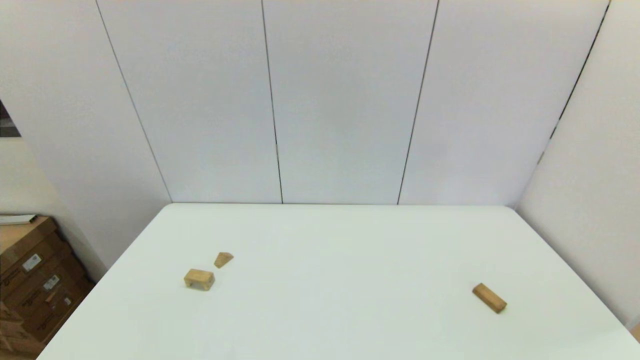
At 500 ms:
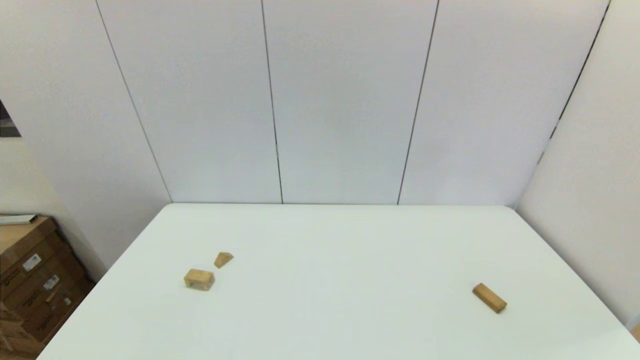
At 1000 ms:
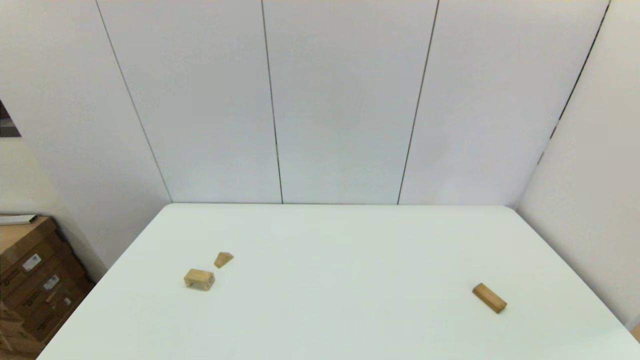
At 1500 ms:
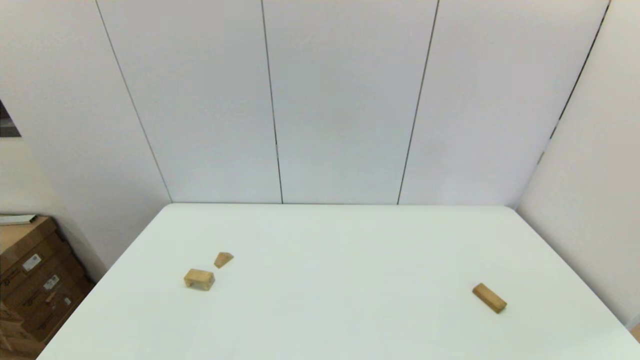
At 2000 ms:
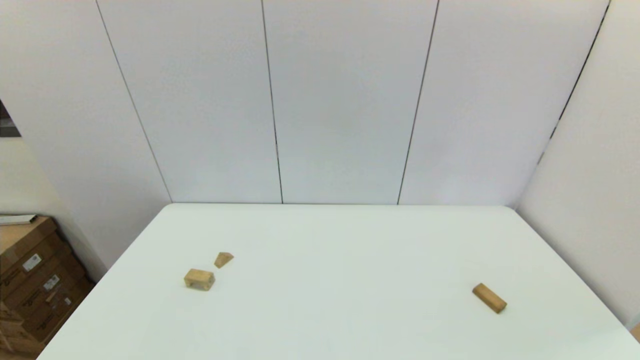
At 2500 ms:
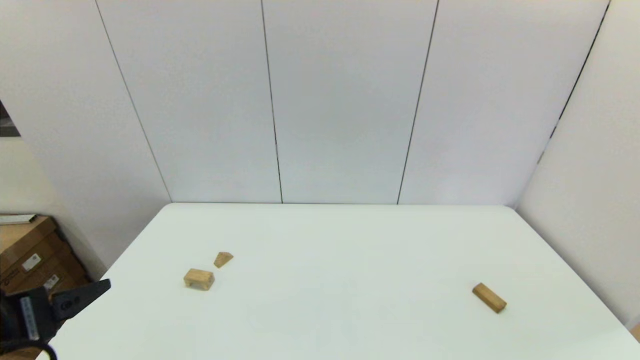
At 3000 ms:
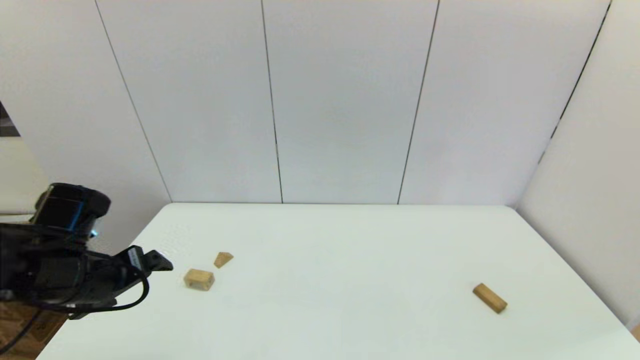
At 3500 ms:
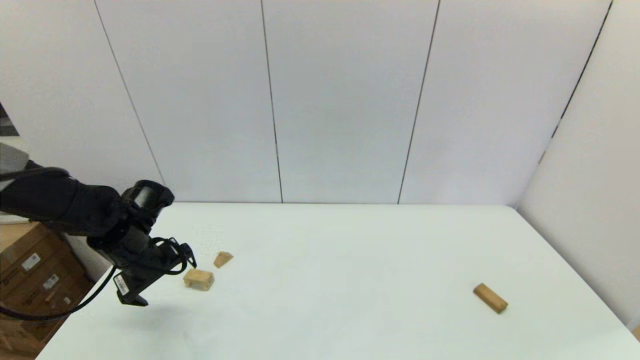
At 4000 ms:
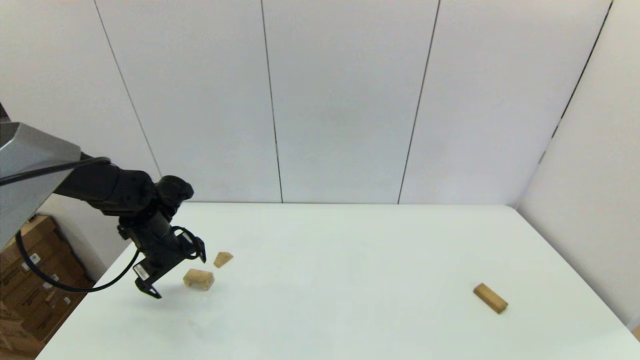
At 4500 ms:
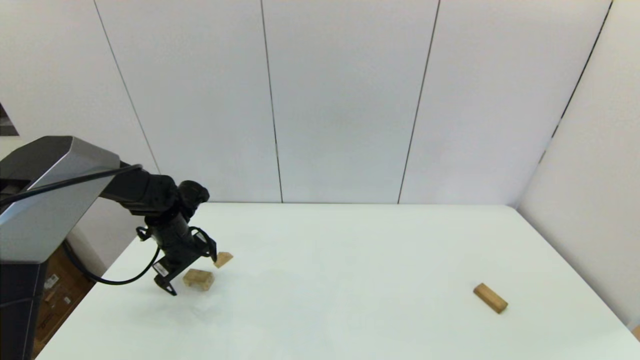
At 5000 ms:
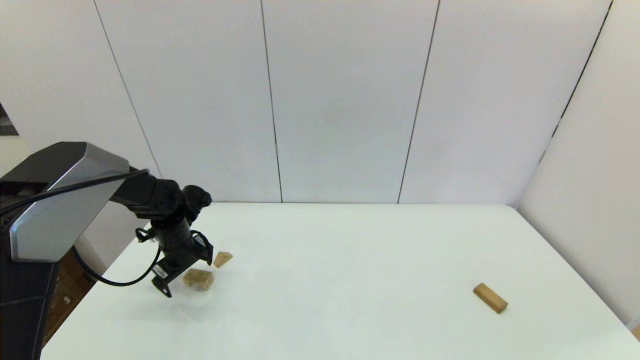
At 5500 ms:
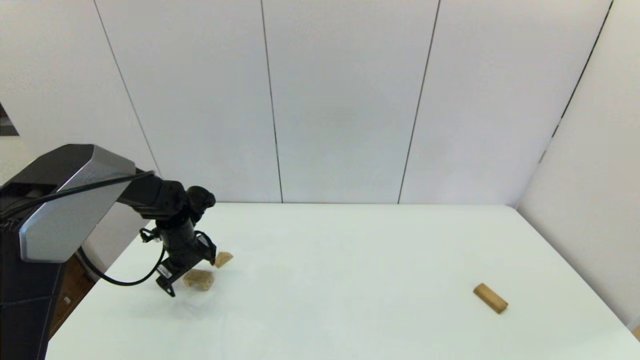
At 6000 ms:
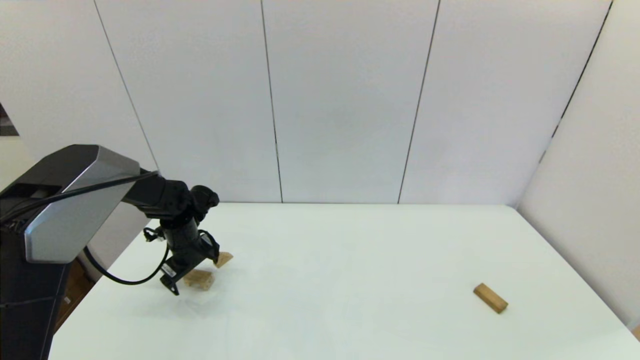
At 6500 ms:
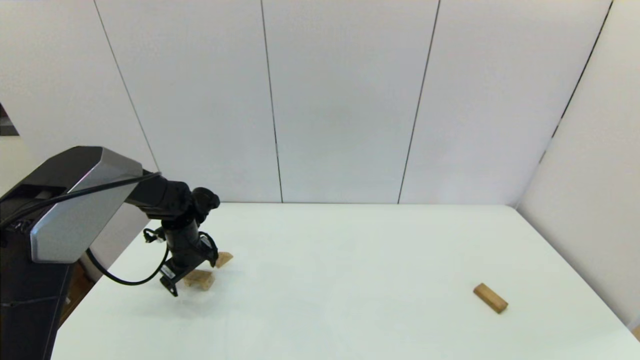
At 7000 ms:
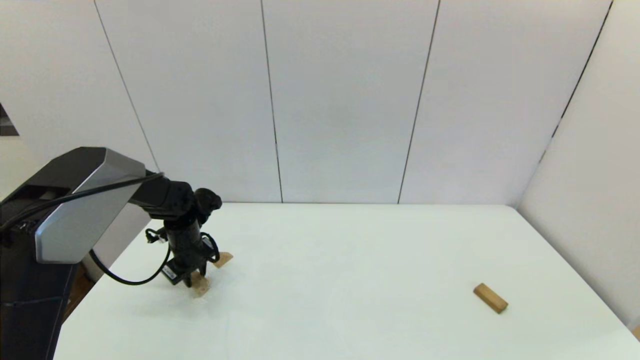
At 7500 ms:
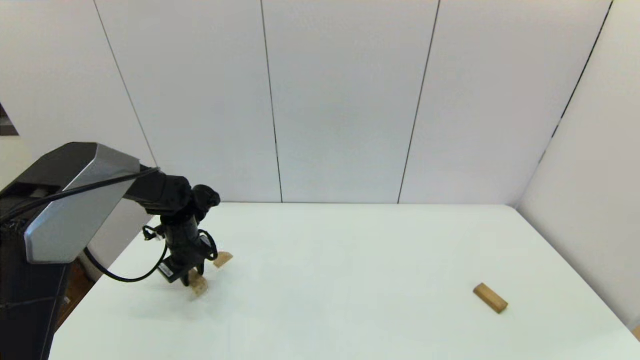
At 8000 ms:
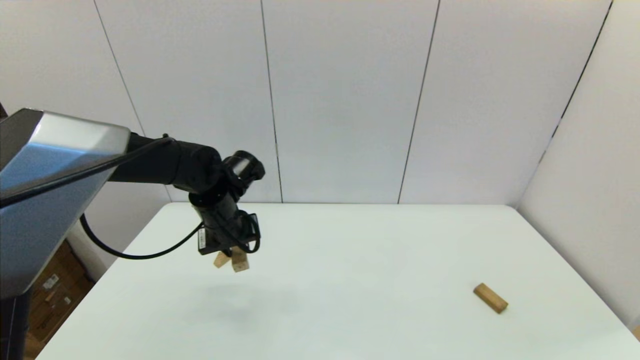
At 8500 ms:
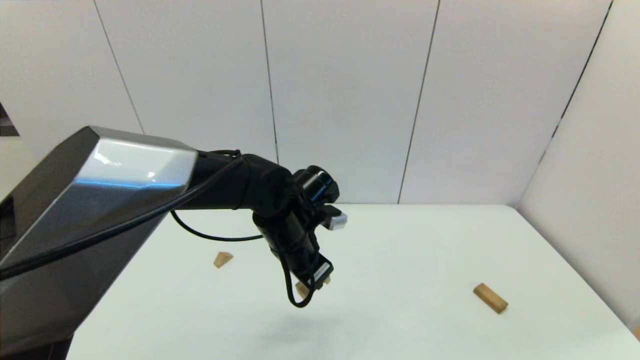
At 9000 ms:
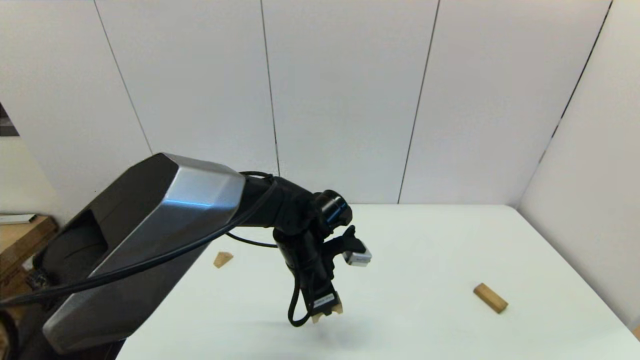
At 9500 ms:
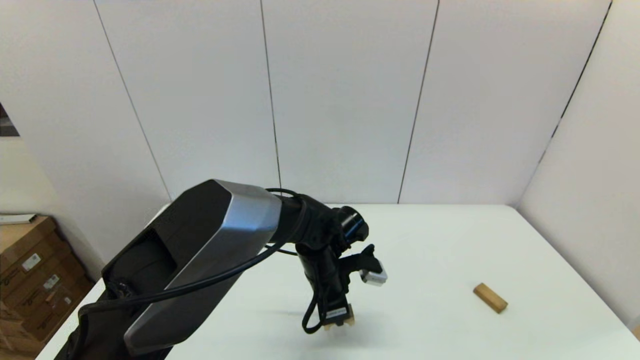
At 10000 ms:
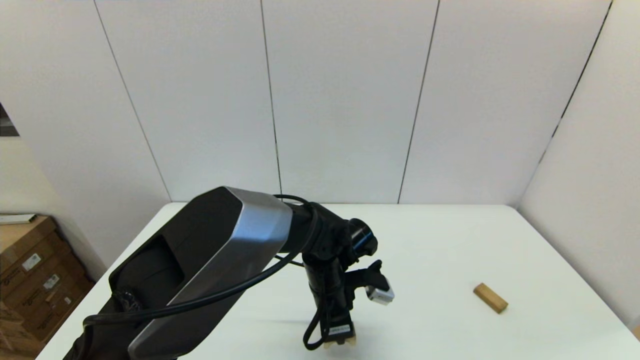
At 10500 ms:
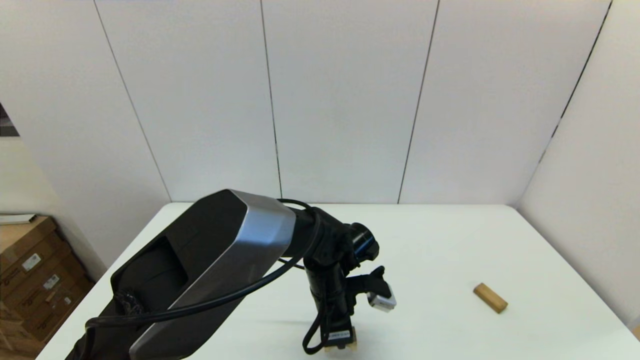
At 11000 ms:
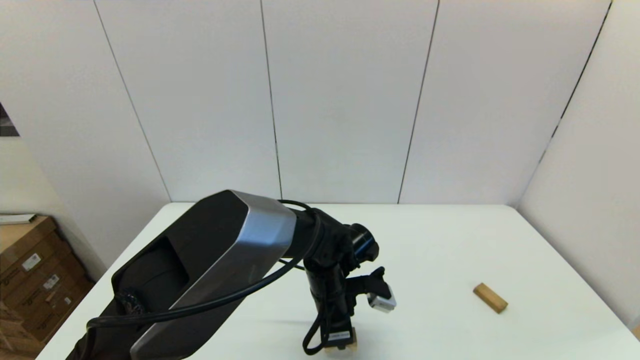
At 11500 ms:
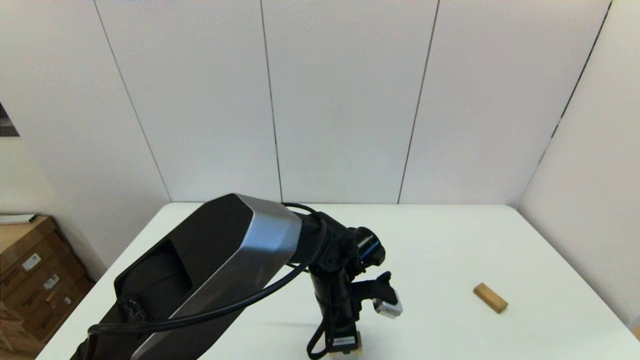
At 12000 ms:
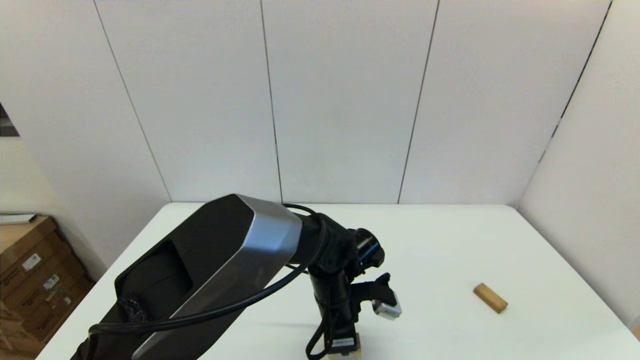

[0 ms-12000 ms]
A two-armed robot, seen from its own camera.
Task of the whole recording: place the arched building blocks in the center of the table, set up the rectangular building blocks, and then set up the triangular building blocks.
Step, 2500 ms to 7000 ms: Grasp the arch-shaped block with the left gripper.
2000 ms to 4000 ms: The left gripper shifts approximately 40 cm forward.
4000 ms to 6000 ms: The left gripper shifts by about 5 cm.
6000 ms to 8000 ms: The left gripper shifts roughly 15 cm to the right and upward, and closes.
8000 ms to 10000 ms: The left gripper is displaced to the right and downward by approximately 20 cm.
10000 ms to 12000 ms: The grippers make only small movements.

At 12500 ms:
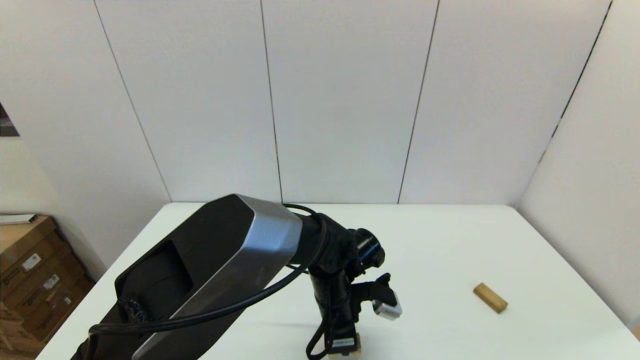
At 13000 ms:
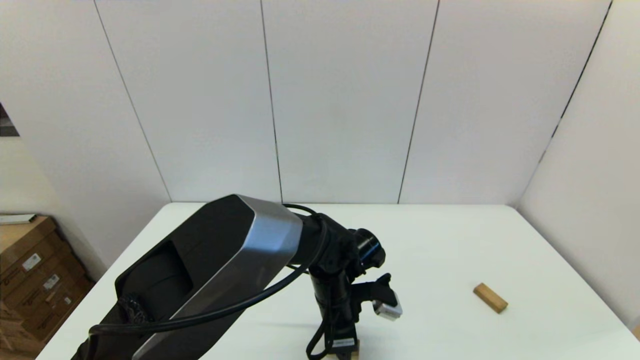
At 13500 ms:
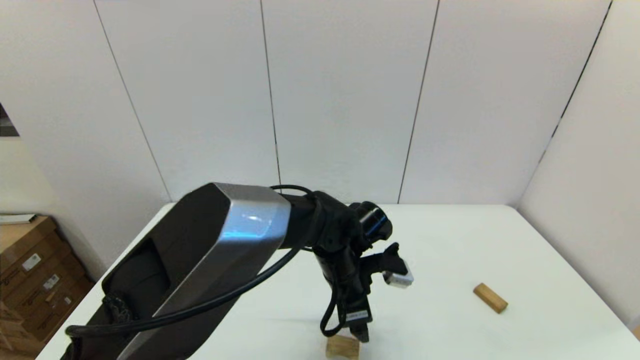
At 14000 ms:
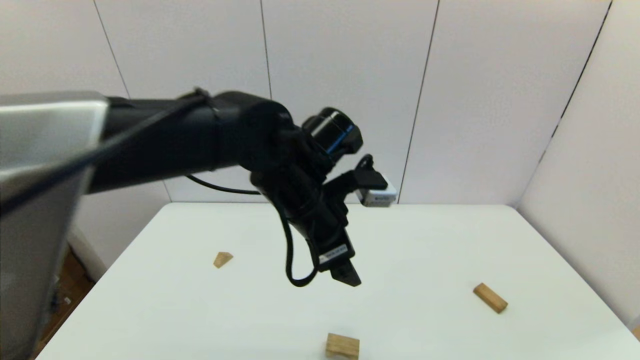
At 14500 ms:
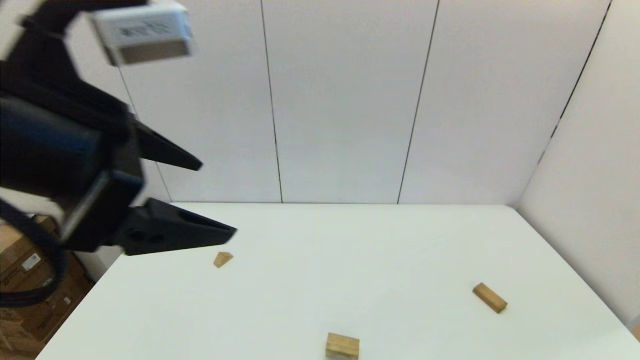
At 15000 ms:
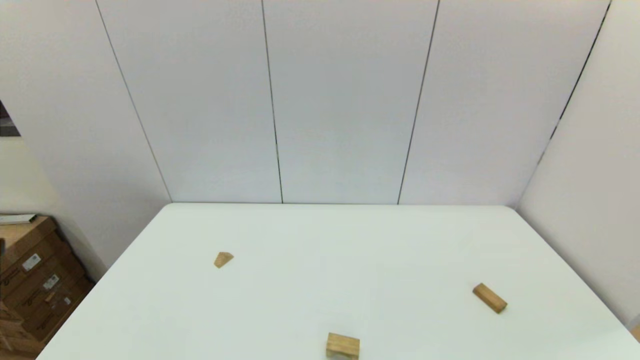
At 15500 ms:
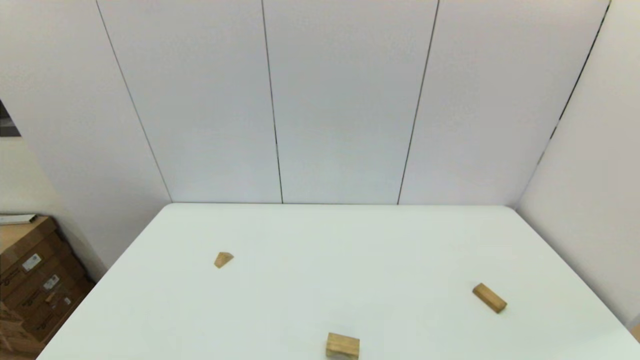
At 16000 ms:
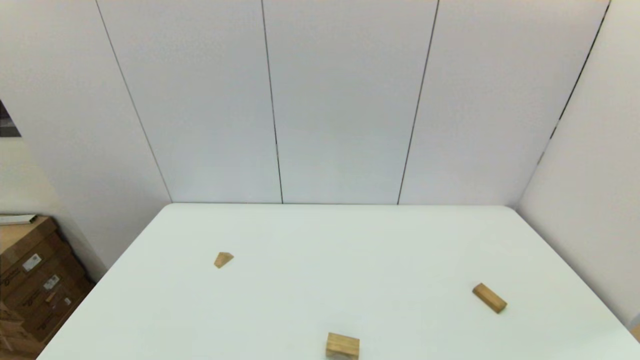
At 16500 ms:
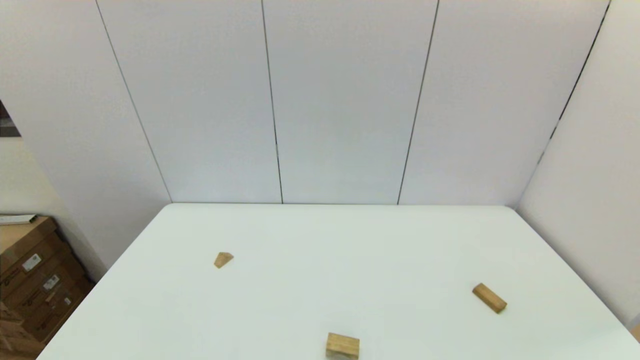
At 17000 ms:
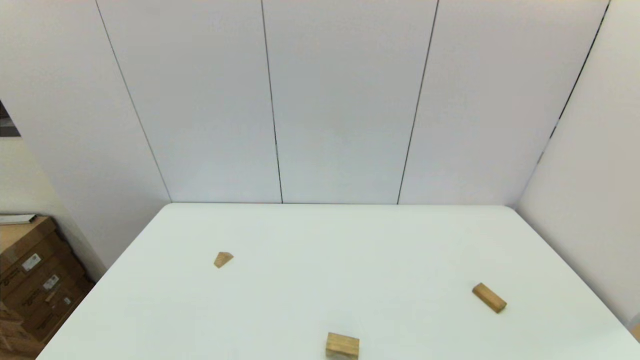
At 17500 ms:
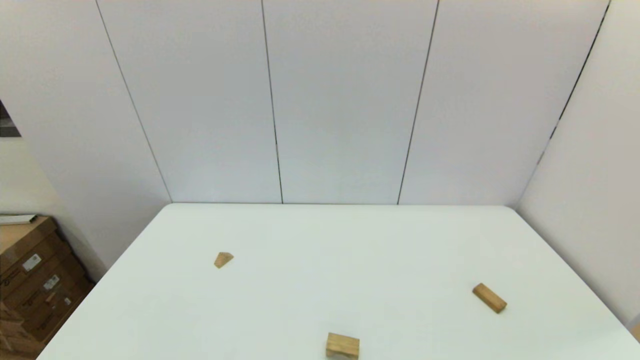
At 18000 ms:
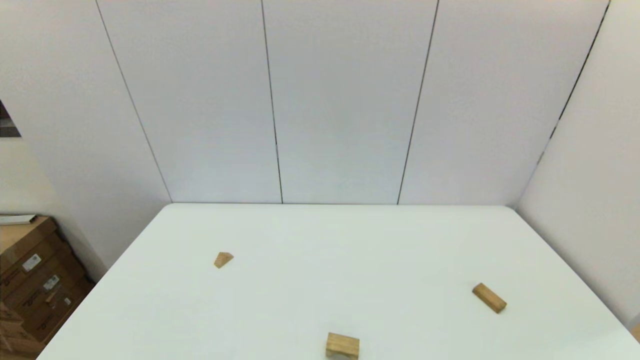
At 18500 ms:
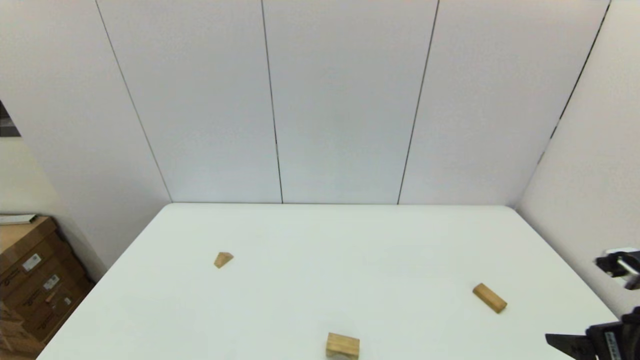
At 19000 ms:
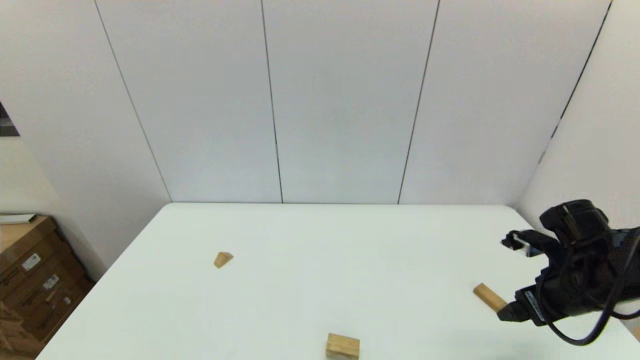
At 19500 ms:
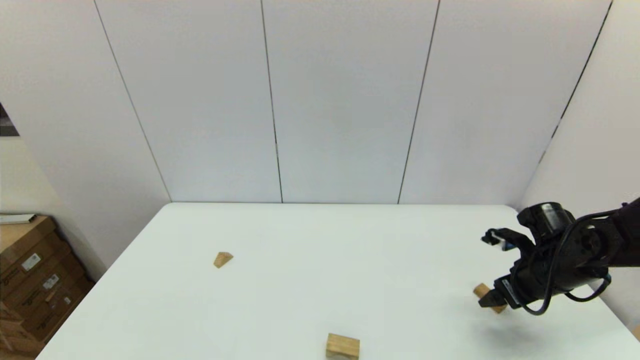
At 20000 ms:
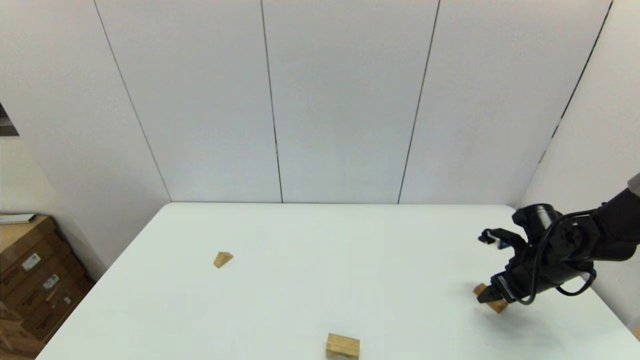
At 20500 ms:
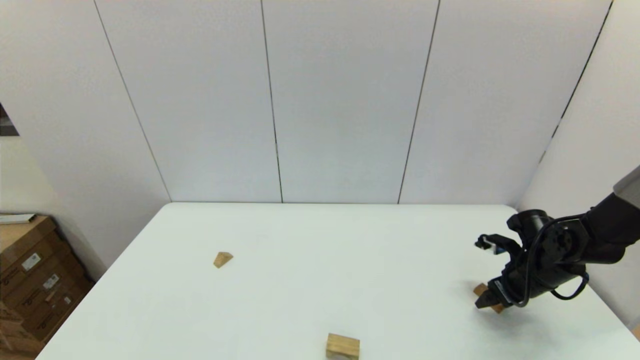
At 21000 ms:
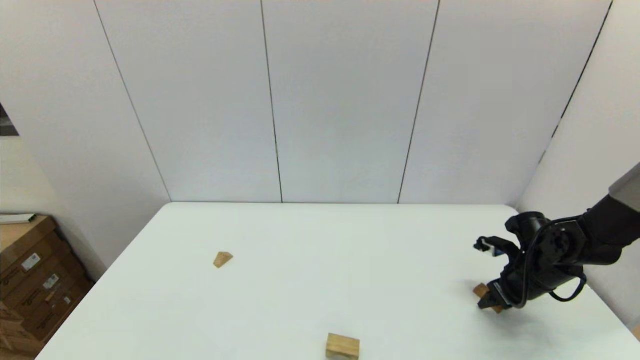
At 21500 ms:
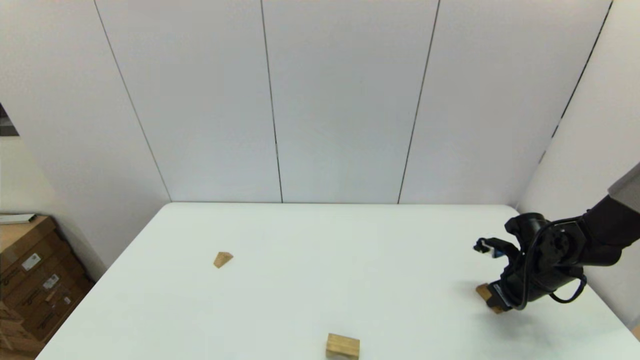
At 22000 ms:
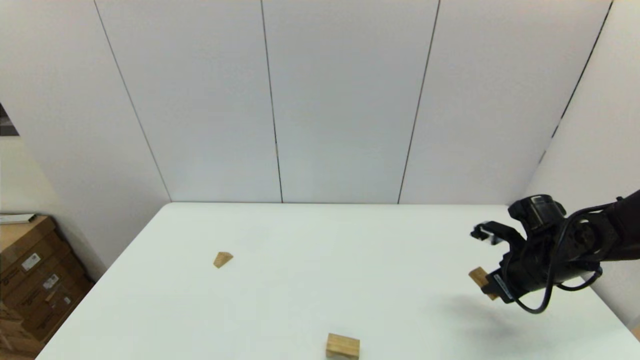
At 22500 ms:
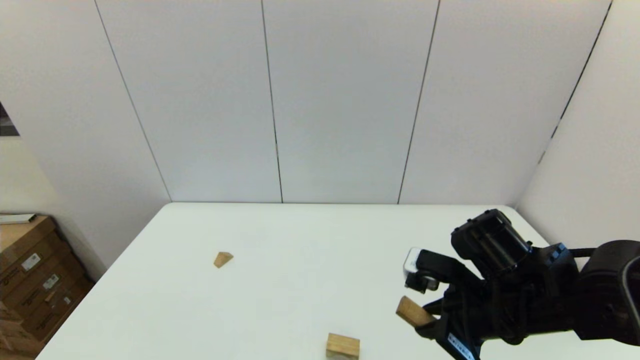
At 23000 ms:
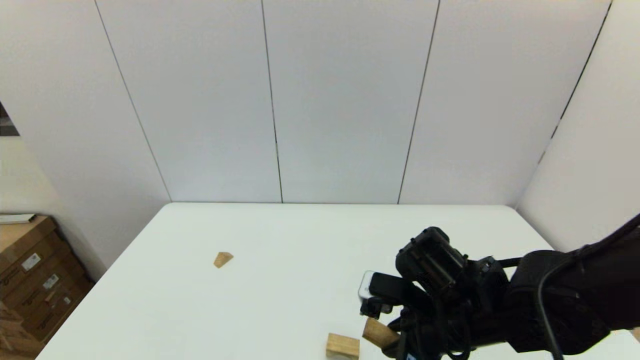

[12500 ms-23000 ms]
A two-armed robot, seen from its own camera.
Task of the whole recording: place the arched building blocks in the center of the table, set up the rectangular building blocks, and then set up the triangular building blocks.
Step, 13000 ms to 21000 ms: Grasp the box-shaped block with the right gripper.
12500 ms to 14500 ms: The left gripper shifts about 40 cm upward, to the left and backward, and opens up.
14500 ms to 16500 ms: The left gripper is displaced downward, backward and to the left by some 35 cm.
16500 ms to 19000 ms: The right gripper heads forward, covering roughly 30 cm.
19000 ms to 21000 ms: The right gripper goes roughly 10 cm downward and forward, and closes up.
21000 ms to 23000 ms: The right gripper moves to the left and backward, about 25 cm, and closes.
